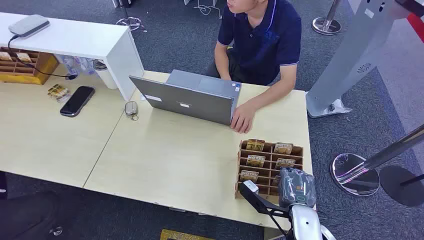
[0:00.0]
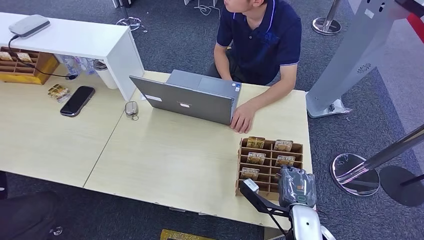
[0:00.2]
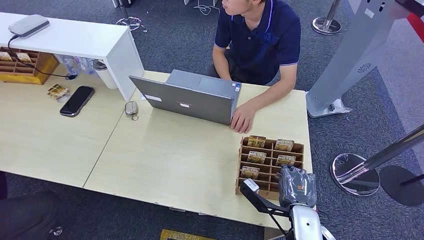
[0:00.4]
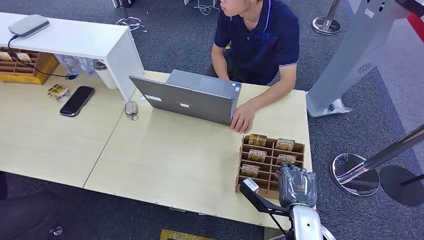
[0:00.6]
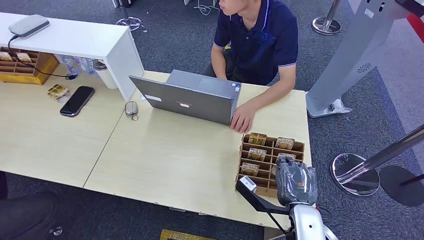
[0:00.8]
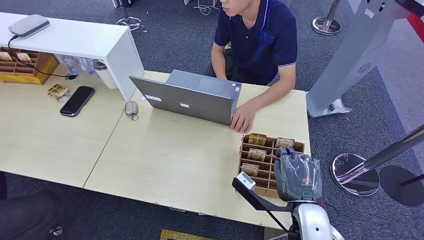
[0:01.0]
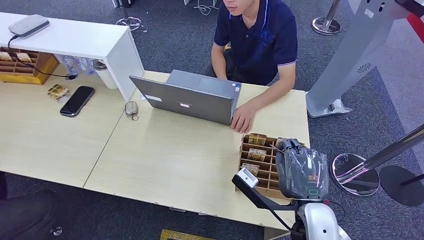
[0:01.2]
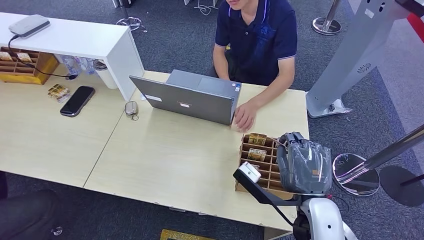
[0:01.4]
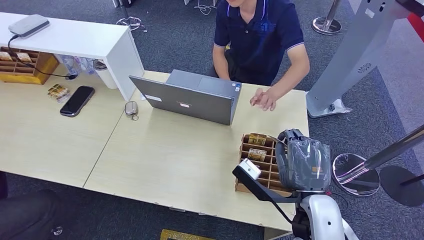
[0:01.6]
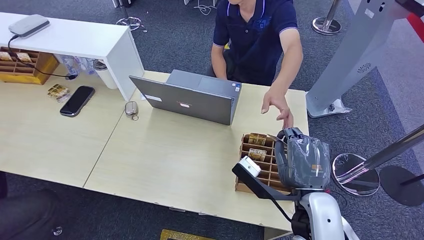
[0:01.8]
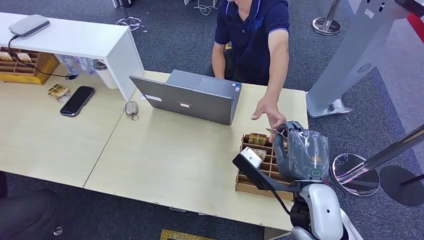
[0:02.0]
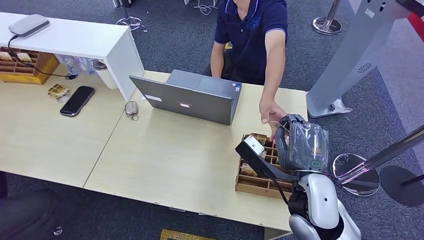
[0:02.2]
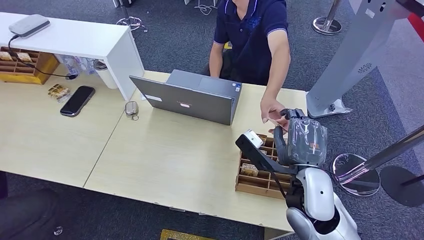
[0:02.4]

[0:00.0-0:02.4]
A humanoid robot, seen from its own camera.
Step, 0:00.0 to 0:00.6: Pick up the key card from the card box.
Step, 0:01.8 to 0:02.4: Hand the key card to the target.
0:01.2 to 0:02.4: The right hand moves forward, some 5 cm.
